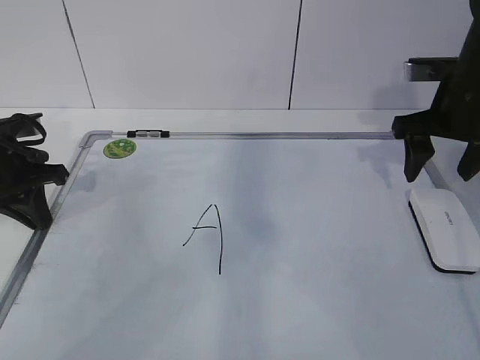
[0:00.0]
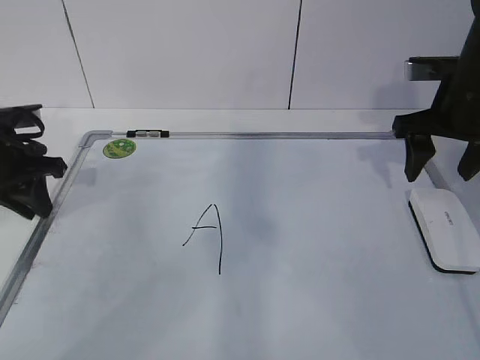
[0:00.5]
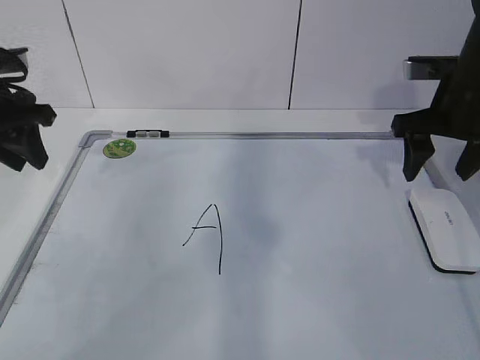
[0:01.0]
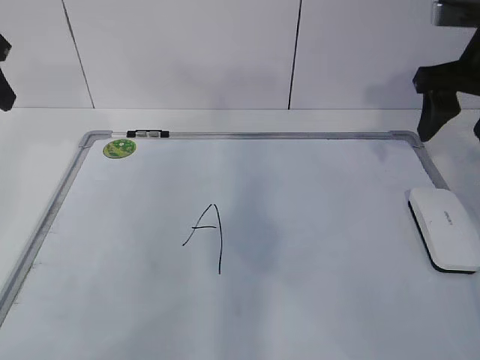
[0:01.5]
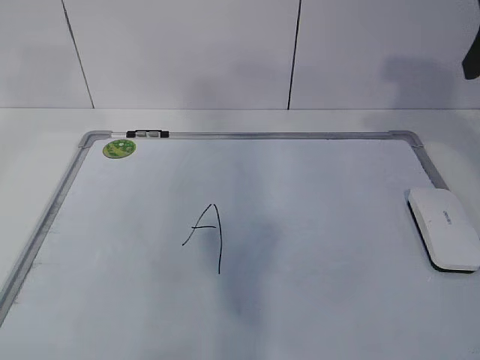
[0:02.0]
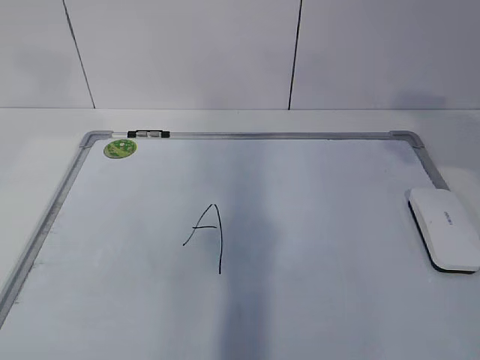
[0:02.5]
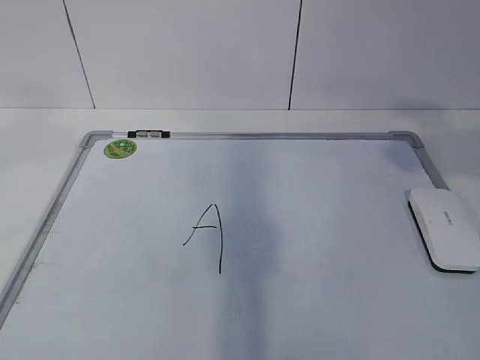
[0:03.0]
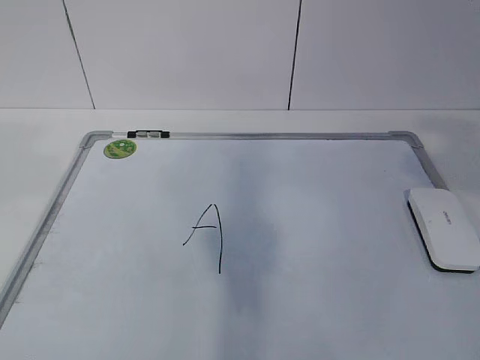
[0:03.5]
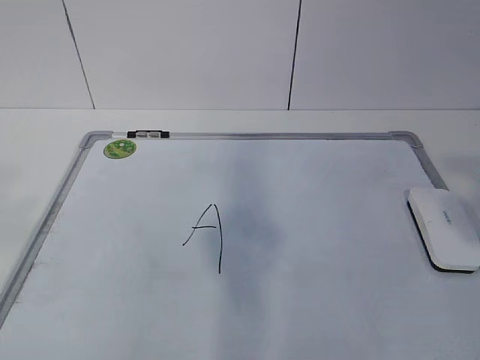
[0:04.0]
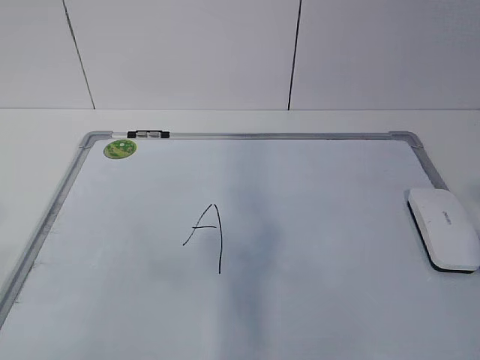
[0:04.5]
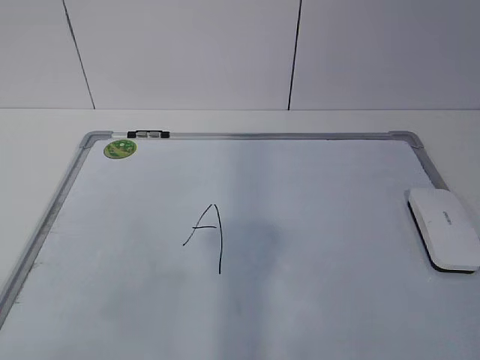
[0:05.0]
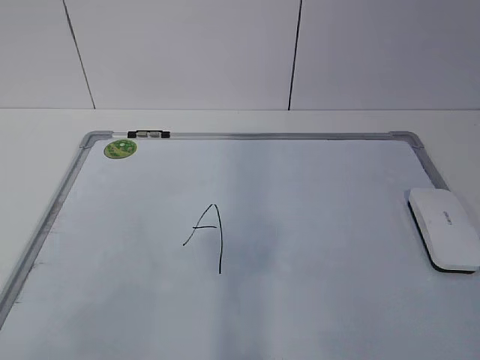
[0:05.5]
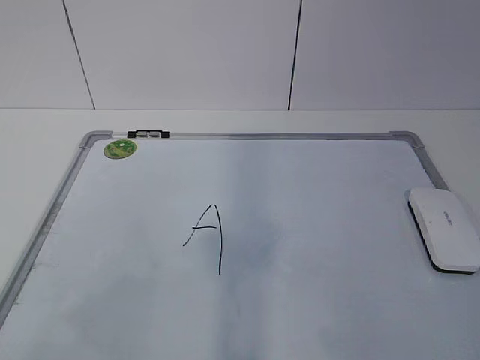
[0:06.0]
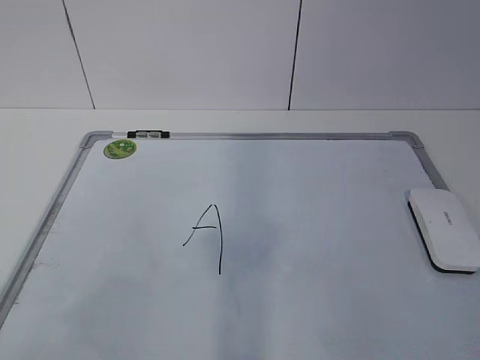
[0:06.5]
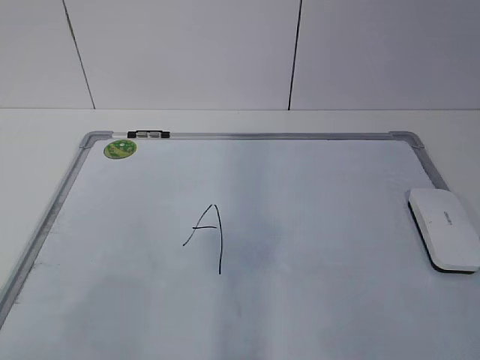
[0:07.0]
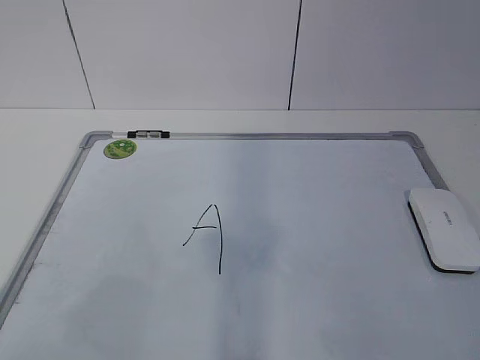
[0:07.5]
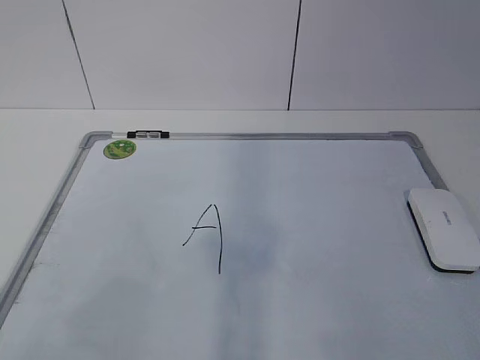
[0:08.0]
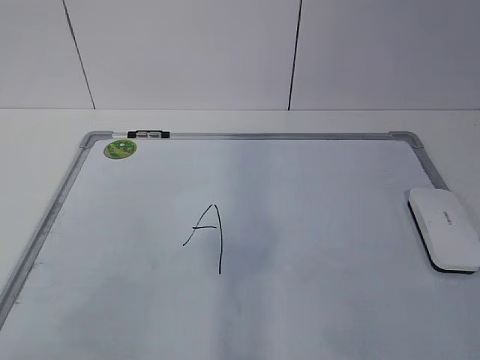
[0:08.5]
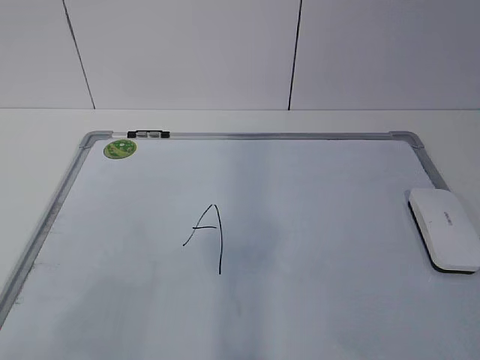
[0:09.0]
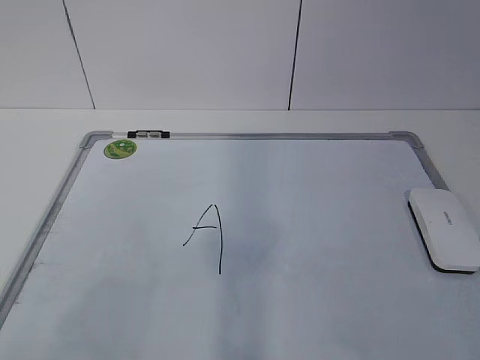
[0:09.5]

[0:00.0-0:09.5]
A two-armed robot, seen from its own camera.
Task of the whole recording: pick up the eraser on the blackboard and erase the letter "a".
0:00.0 to 0:02.0: The right gripper goes about 20 cm upward and backward. The left gripper is displaced upward by approximately 25 cm, and opens its fingers.
0:02.0 to 0:04.0: Both grippers travel together backward, some 25 cm.
0:04.0 to 0:05.5: The left gripper is displaced downward by about 15 cm.
